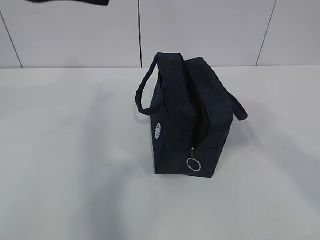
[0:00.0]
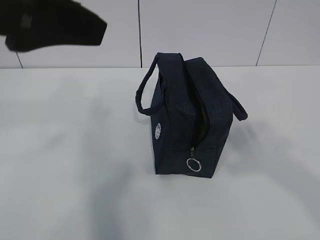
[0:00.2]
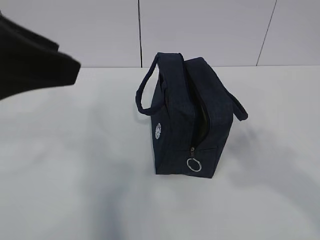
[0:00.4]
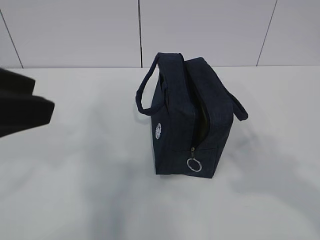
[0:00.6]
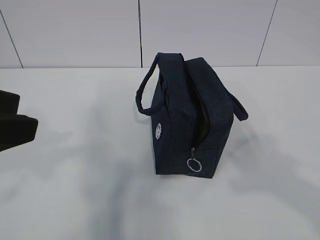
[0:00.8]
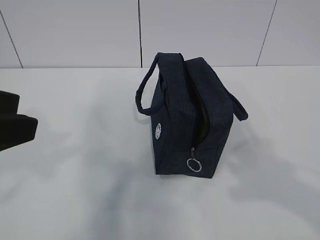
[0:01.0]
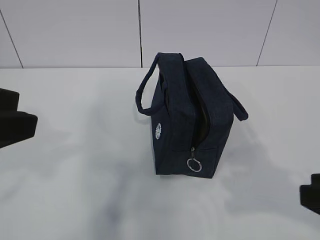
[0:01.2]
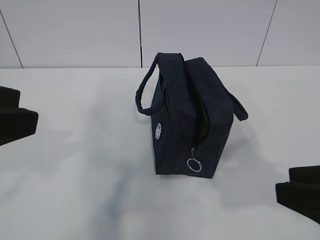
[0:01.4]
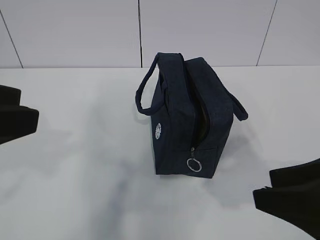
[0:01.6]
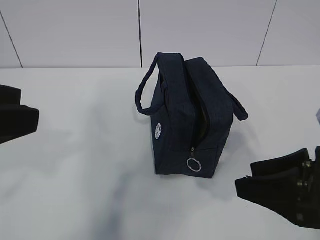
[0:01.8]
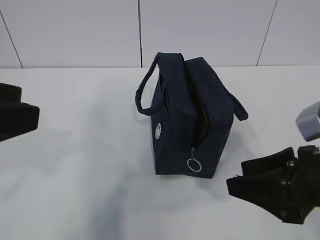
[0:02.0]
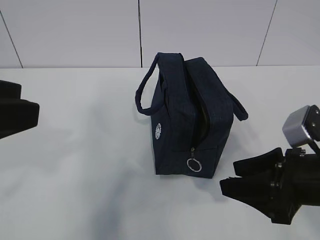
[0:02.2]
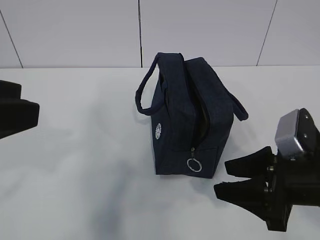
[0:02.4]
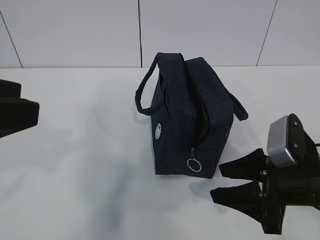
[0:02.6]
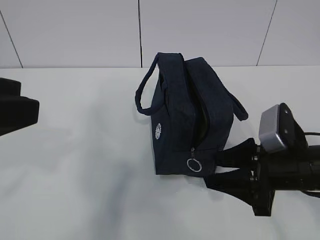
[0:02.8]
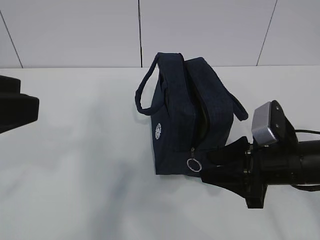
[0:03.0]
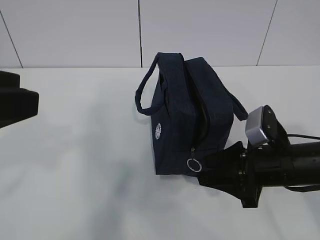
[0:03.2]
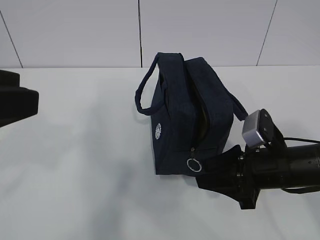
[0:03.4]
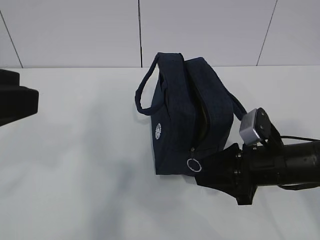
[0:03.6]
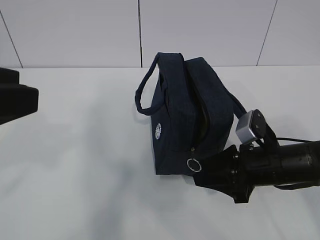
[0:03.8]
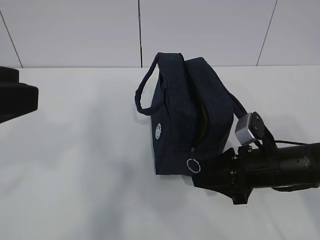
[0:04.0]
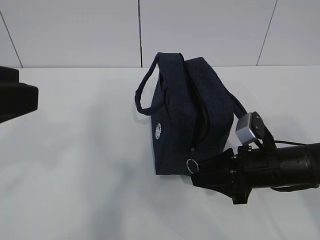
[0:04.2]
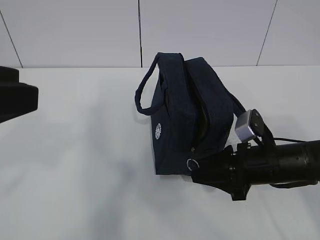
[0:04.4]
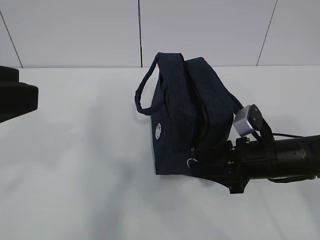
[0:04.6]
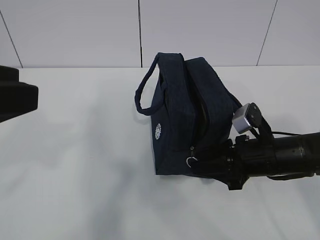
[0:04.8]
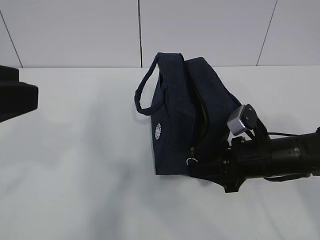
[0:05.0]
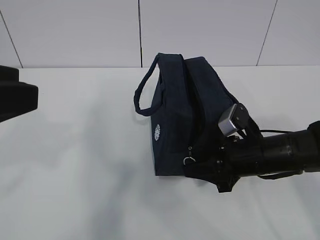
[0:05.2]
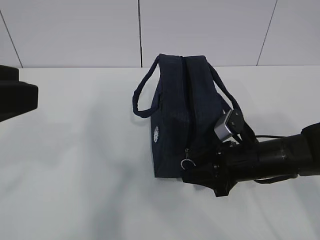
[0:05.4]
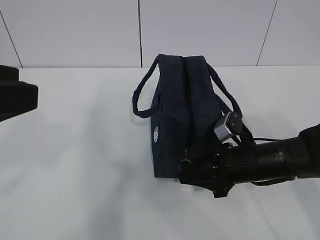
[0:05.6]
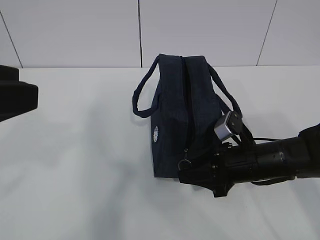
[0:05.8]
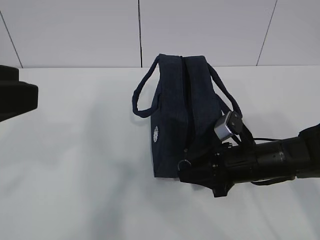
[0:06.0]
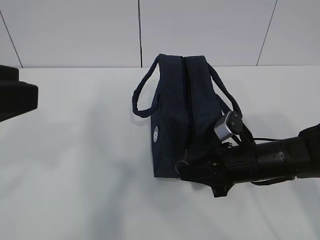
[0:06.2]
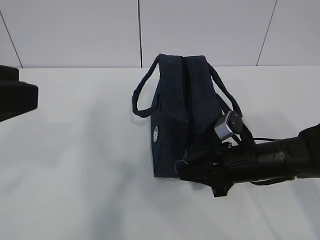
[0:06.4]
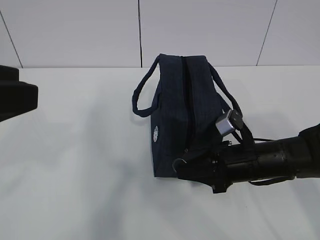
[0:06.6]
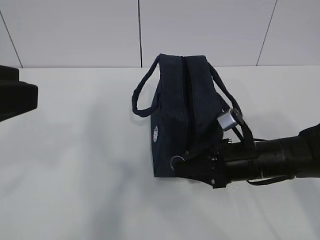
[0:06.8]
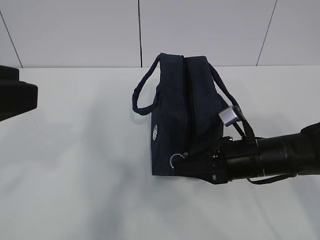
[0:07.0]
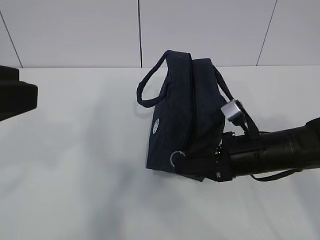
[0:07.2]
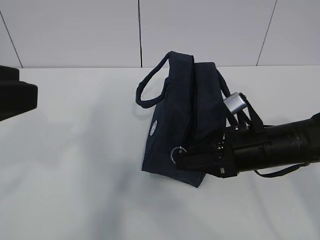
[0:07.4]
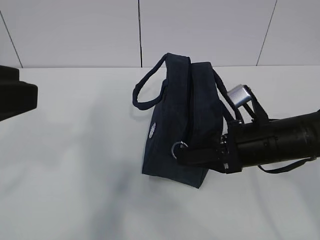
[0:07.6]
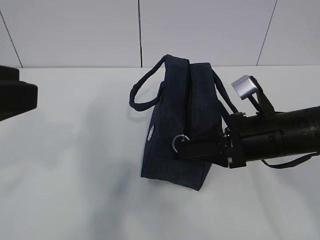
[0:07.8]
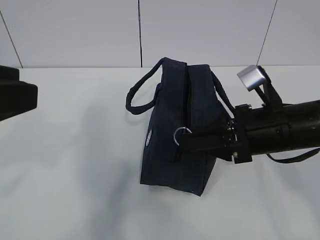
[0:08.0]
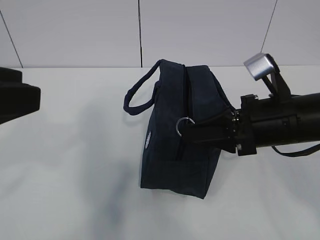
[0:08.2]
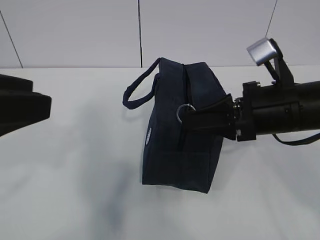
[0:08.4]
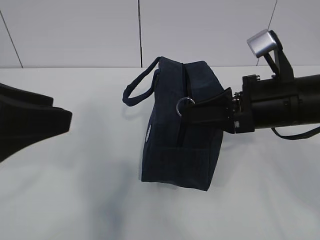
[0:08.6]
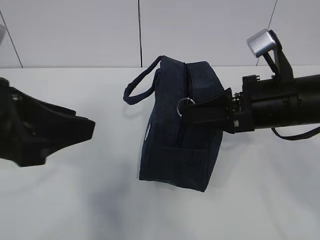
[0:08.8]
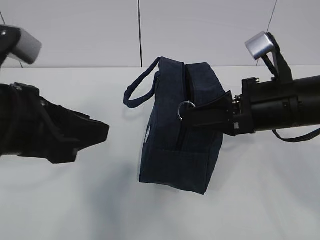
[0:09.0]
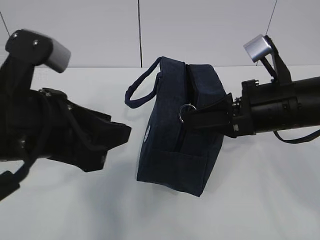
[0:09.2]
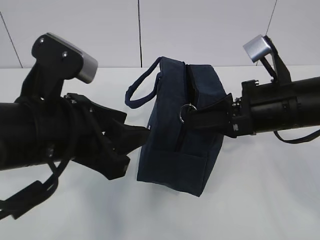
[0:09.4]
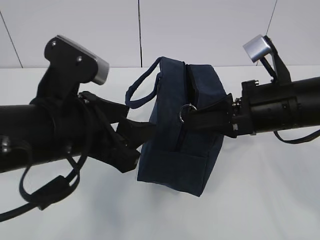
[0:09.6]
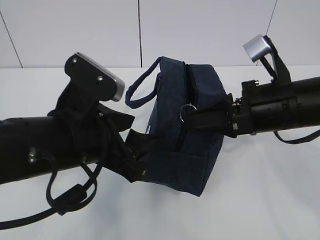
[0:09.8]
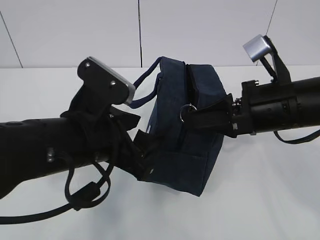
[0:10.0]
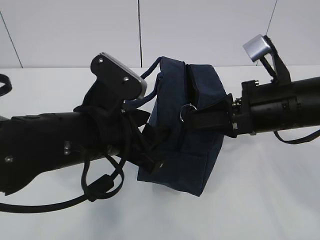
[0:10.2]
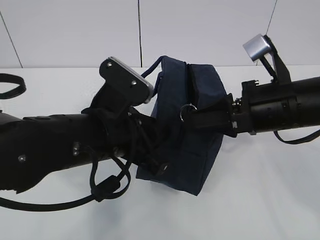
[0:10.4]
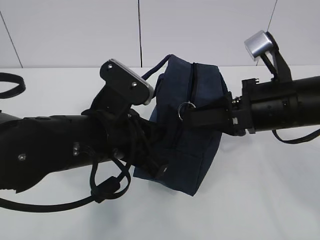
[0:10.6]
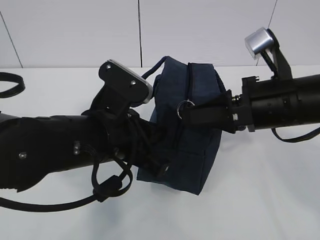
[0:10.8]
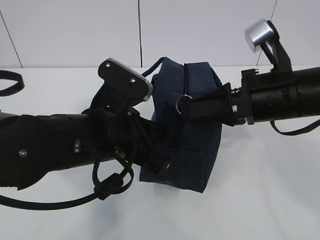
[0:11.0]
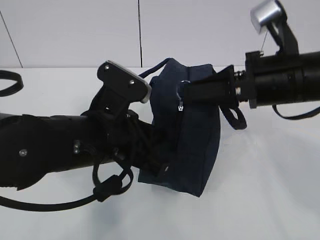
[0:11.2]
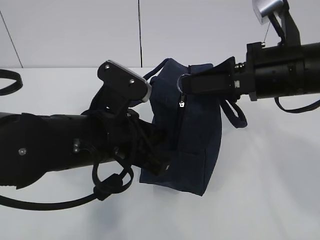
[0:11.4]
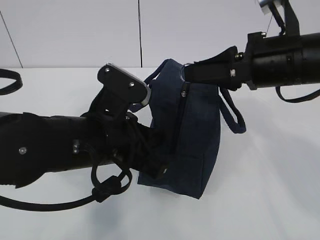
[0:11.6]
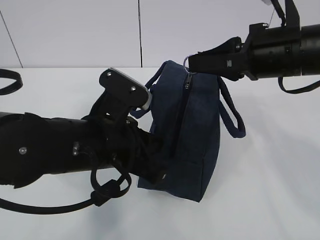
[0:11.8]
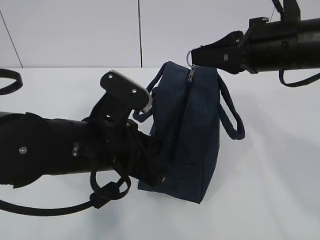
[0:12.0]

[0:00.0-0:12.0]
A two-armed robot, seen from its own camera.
0:00.0 to 0:01.6: The right gripper heads downward, covering some 20 cm, and opens; the left gripper moves backward, downward and to the left, approximately 15 cm.
0:01.6 to 0:03.0: The right gripper shifts approximately 15 cm forward and downward.
0:03.0 to 0:04.4: The grippers stay close to where they were, moving slightly.
0:04.4 to 0:06.0: The grippers make only small movements.
0:06.0 to 0:07.6: The right gripper heads upward, covering some 5 cm.
0:07.6 to 0:09.0: The right gripper heads upward, covering approximately 5 cm, while the left gripper heads downward, forward and to the right, covering some 10 cm.
0:09.0 to 0:10.4: The left gripper moves to the right and downward, approximately 10 cm.
0:10.4 to 0:12.0: The left gripper closes up. Meanwhile the right gripper is displaced upward by roughly 5 cm.

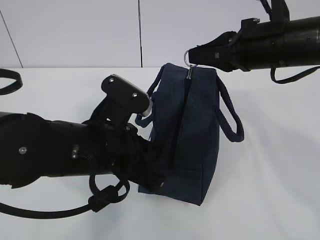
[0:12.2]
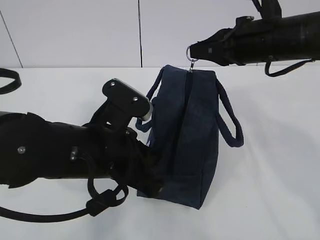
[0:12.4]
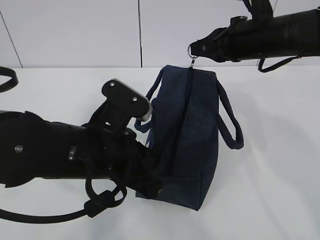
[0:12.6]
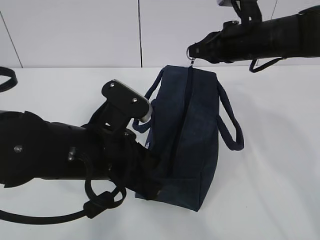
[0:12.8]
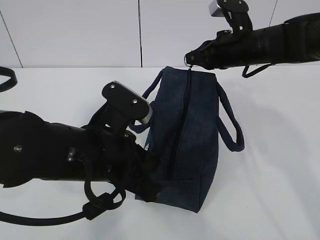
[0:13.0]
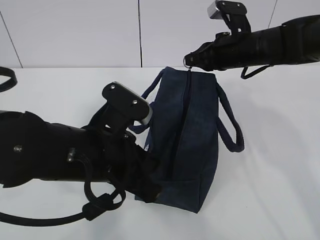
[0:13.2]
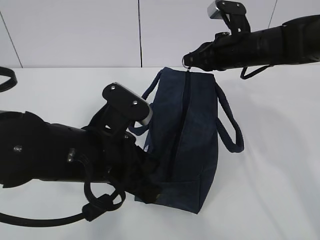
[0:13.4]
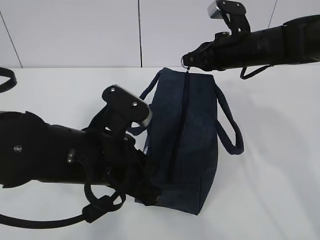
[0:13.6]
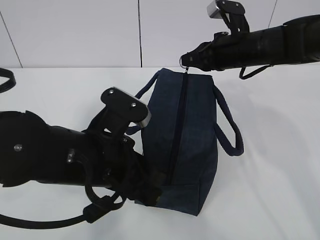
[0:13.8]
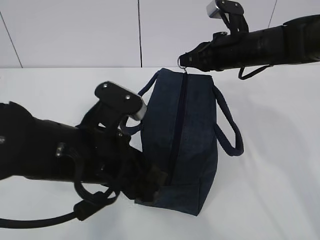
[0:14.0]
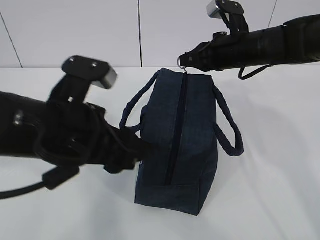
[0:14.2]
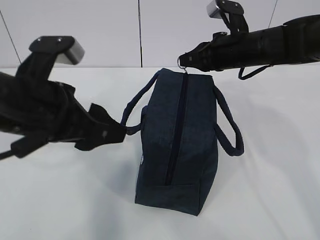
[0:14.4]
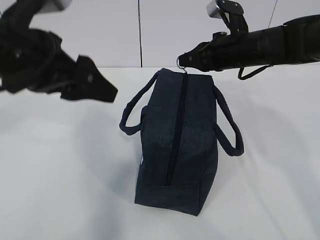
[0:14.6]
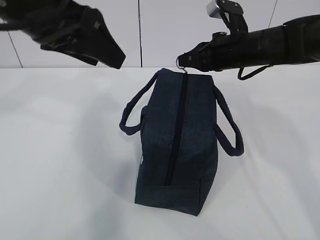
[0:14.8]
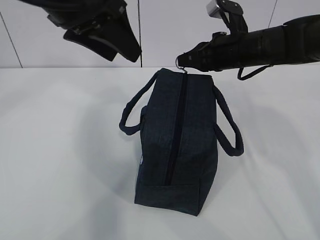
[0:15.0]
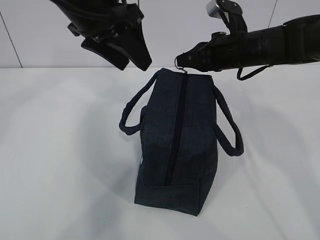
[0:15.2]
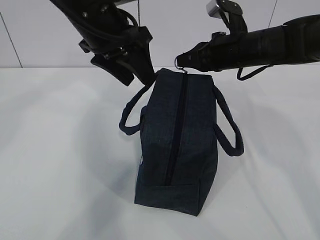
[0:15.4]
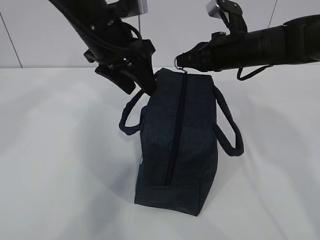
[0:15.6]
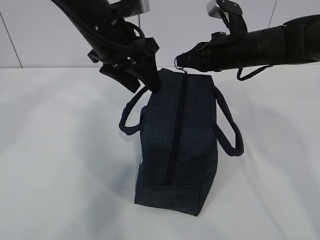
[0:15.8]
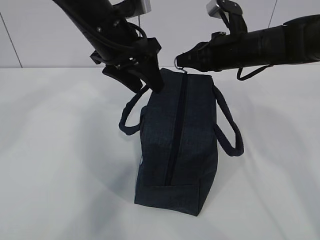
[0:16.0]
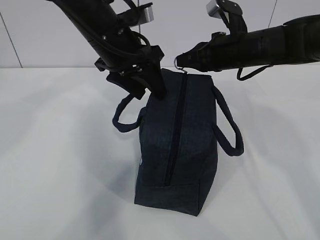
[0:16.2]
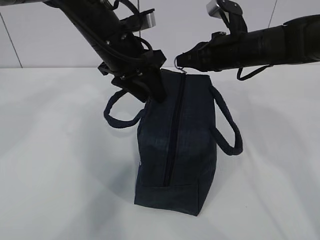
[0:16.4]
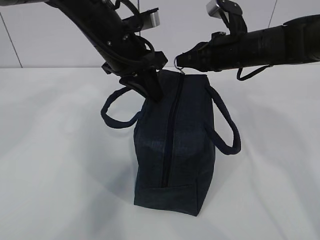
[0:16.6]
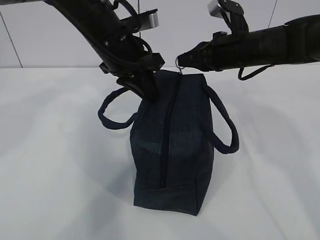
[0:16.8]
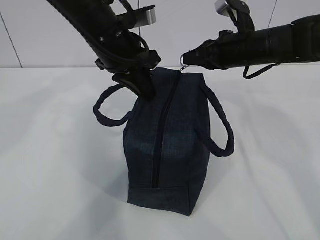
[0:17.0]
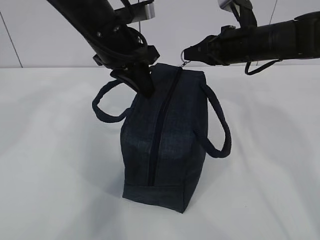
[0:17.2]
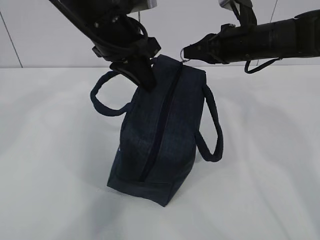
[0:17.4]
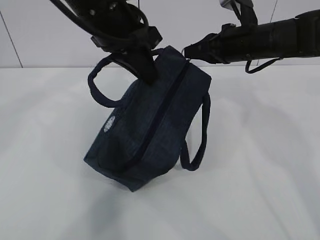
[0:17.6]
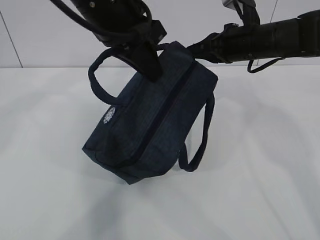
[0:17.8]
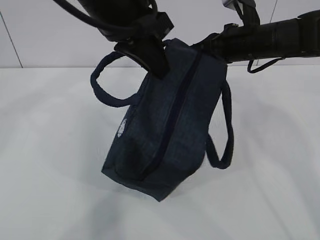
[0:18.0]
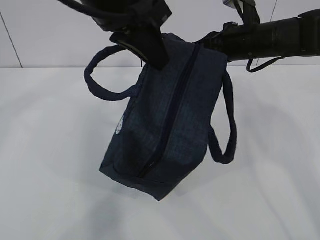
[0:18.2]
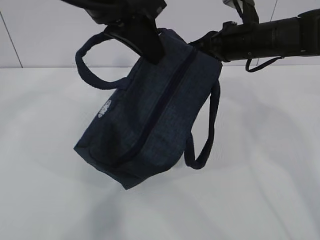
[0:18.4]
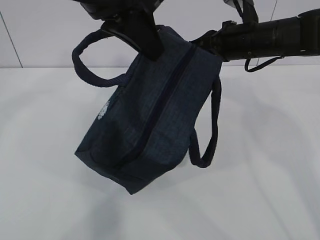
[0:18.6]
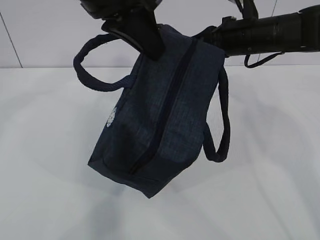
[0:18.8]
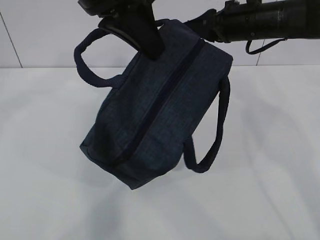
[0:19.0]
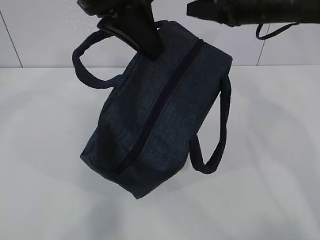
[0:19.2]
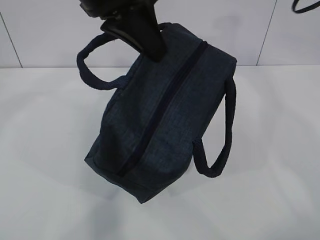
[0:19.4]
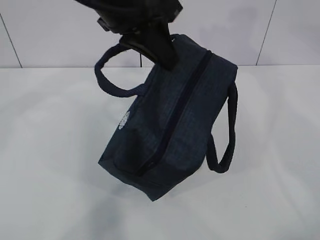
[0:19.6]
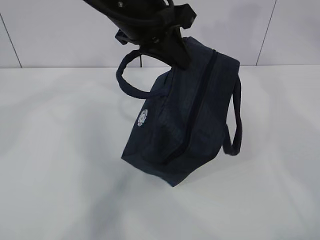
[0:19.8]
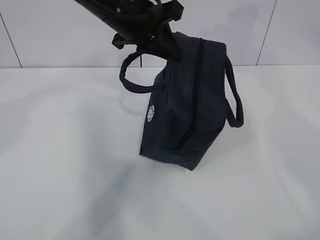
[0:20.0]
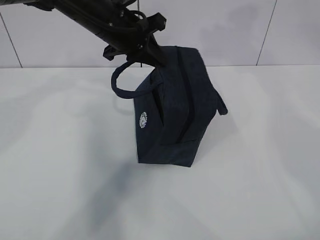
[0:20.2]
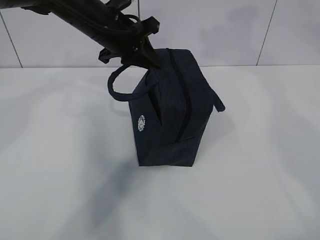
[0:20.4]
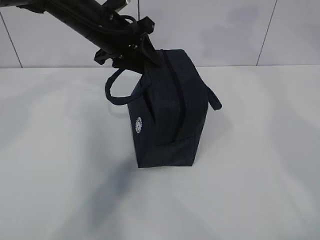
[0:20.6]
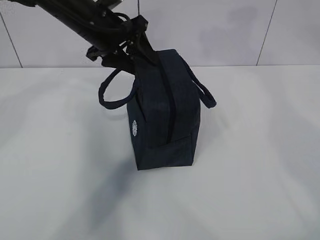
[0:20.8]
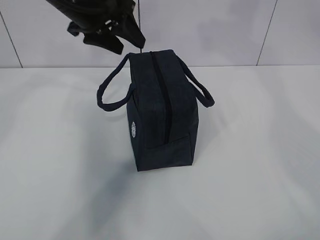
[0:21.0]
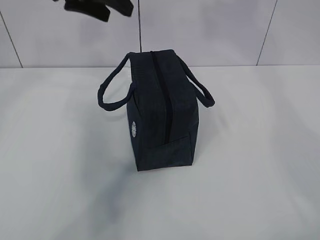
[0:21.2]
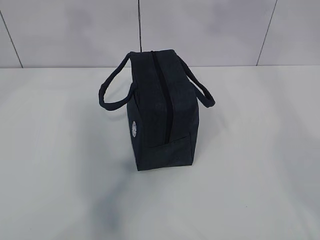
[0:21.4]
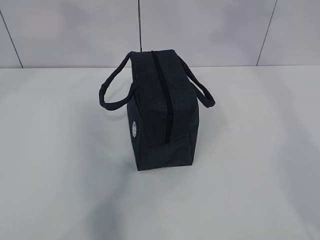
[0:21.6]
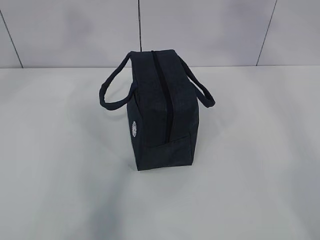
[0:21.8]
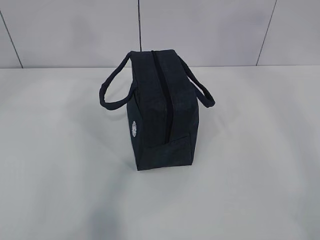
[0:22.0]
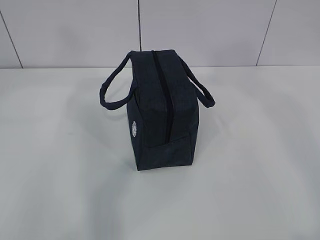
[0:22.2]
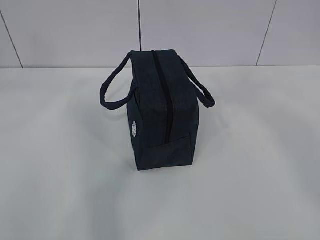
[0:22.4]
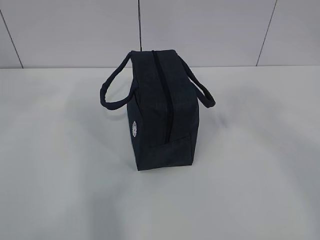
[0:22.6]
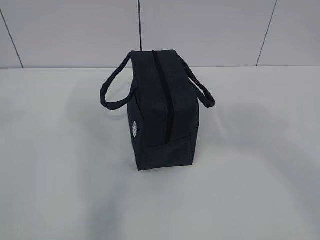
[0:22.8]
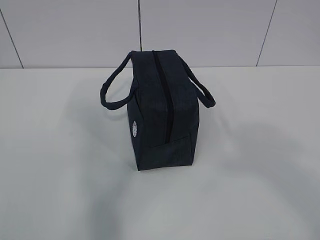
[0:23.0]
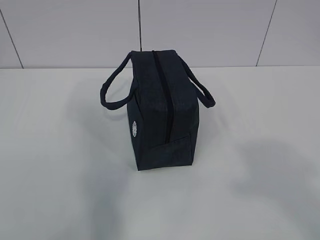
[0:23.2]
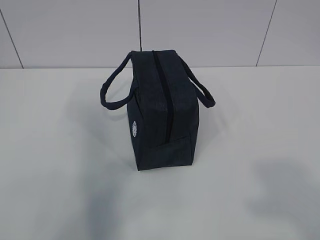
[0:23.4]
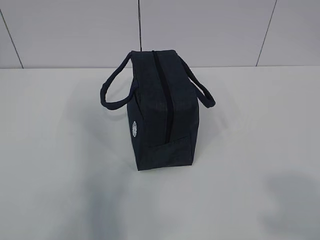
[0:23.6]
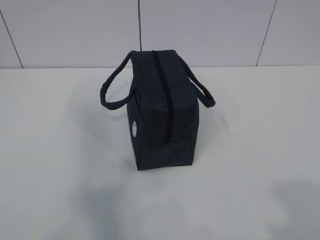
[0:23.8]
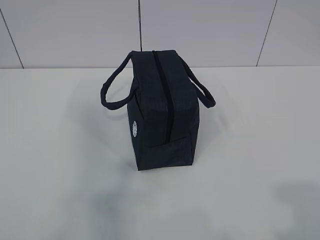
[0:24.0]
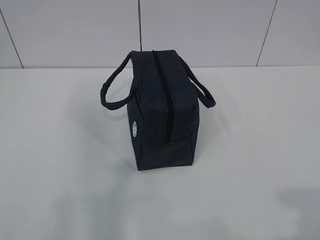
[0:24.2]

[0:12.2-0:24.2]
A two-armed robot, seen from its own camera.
Step, 0:12.2 to 0:21.0: zip up the zipper to close the bag.
0:12.2 to 0:13.8: The left gripper opens, while the right gripper moves forward and downward, some 10 cm.
0:13.8 to 0:15.2: The left gripper is displaced upward and forward by some 20 cm.
0:15.2 to 0:16.6: The left gripper travels downward by approximately 5 cm, and closes.
0:16.6 to 0:18.2: The left gripper travels upward and backward by roughly 15 cm.
0:18.2 to 0:19.8: The right gripper shifts approximately 20 cm upward and to the right, and opens up. The left gripper moves some 5 cm.
0:19.8 to 0:21.2: The right gripper goes some 10 cm upward and backward; the left gripper goes approximately 10 cm to the left, and opens.
0:21.2 to 0:22.6: The left gripper shifts about 35 cm backward and upward. Meanwhile the right gripper travels backward by about 35 cm.
